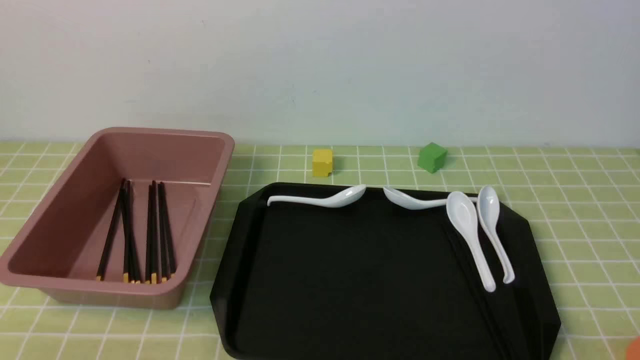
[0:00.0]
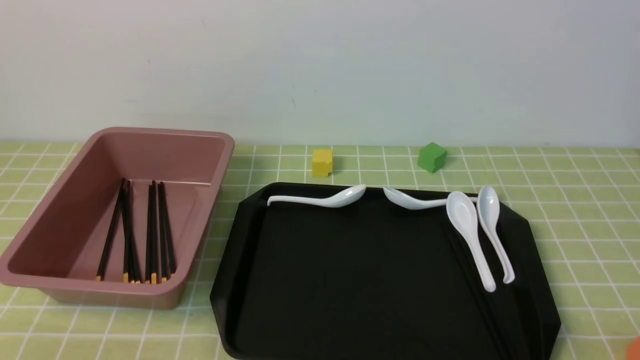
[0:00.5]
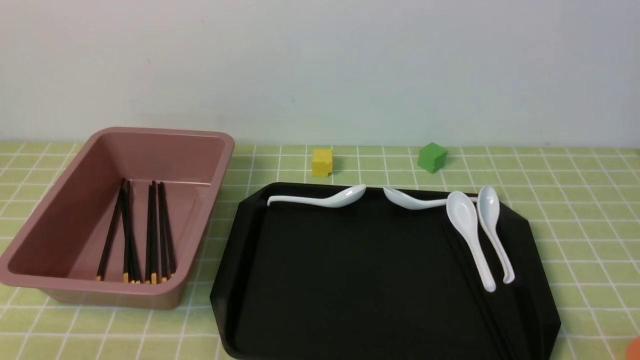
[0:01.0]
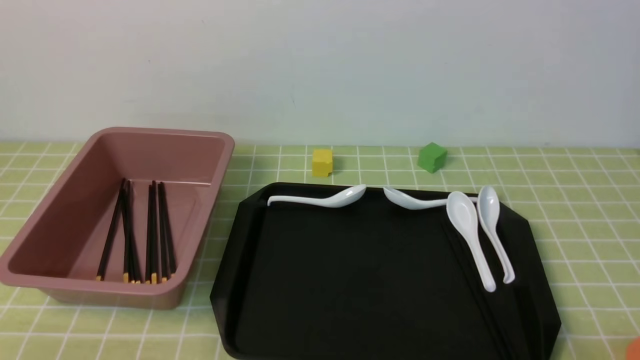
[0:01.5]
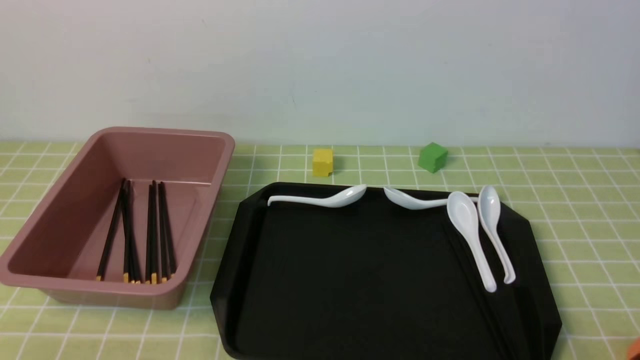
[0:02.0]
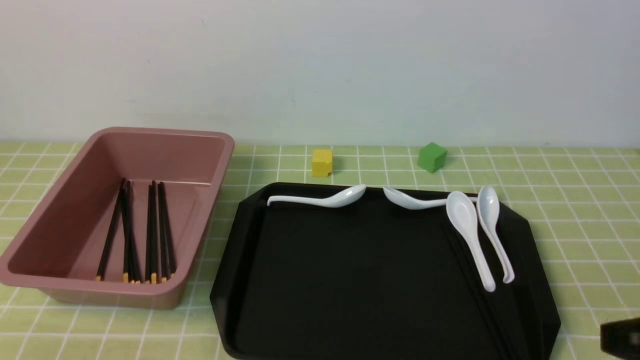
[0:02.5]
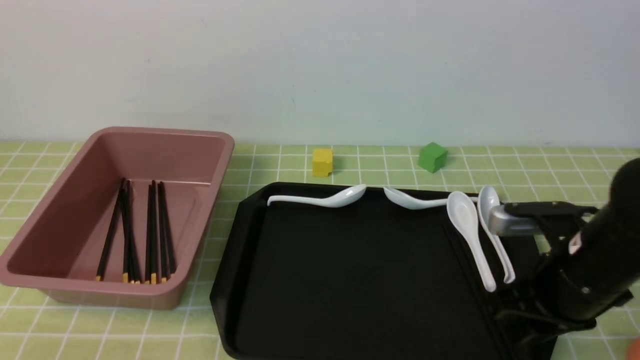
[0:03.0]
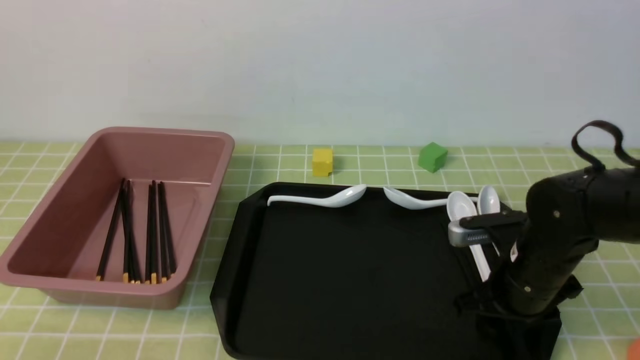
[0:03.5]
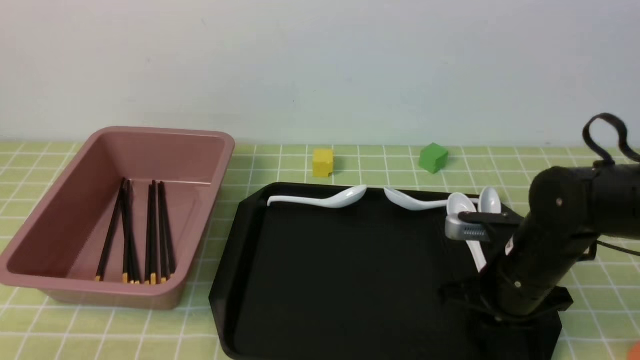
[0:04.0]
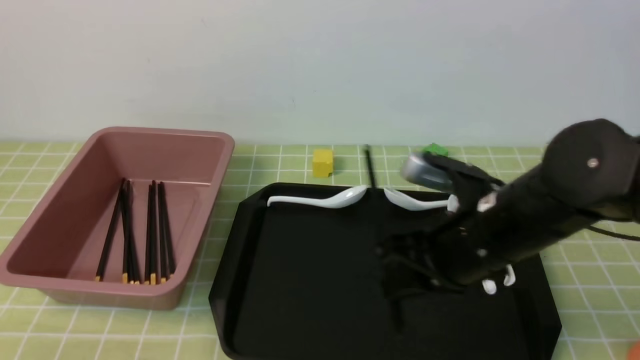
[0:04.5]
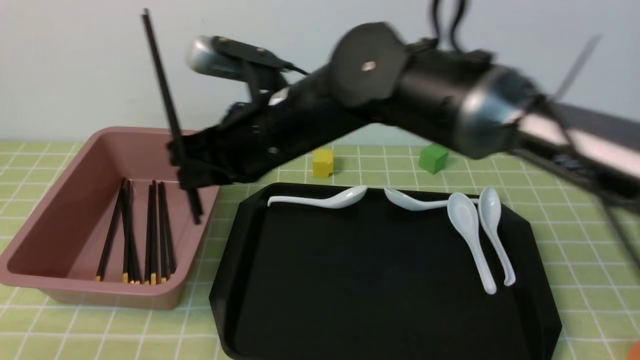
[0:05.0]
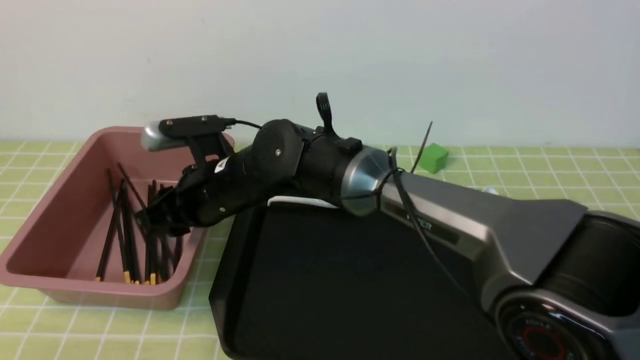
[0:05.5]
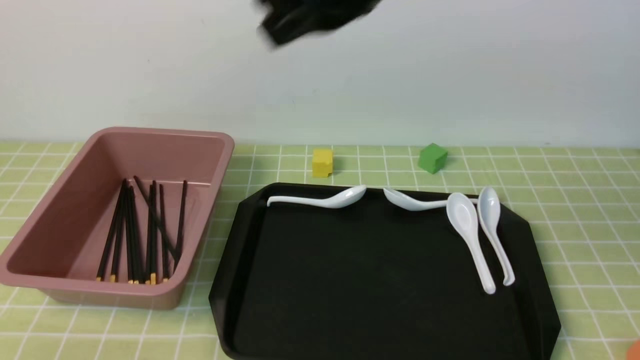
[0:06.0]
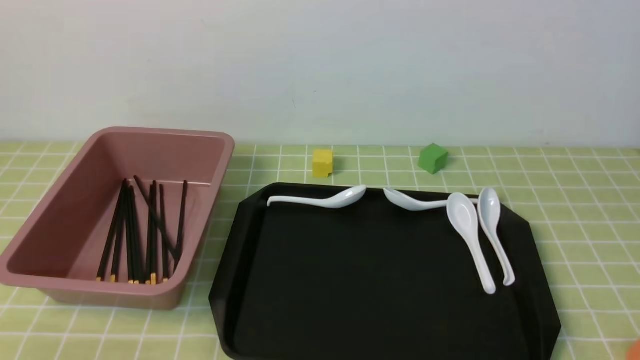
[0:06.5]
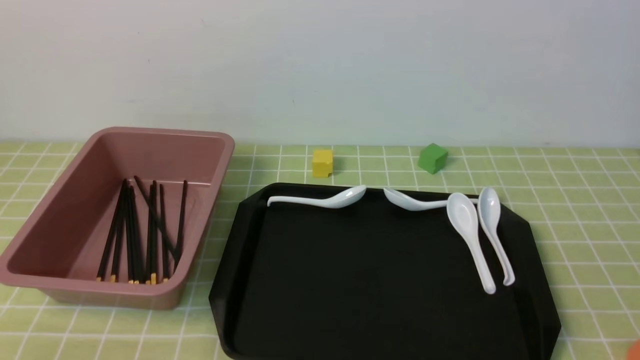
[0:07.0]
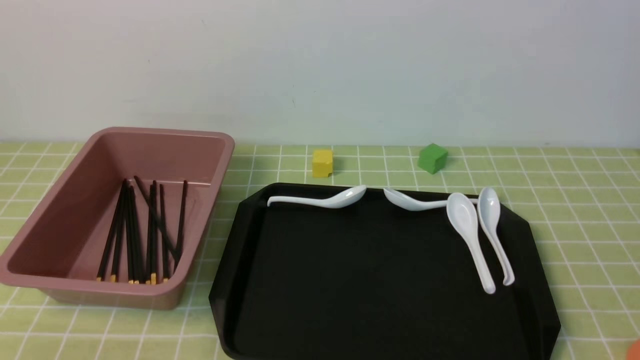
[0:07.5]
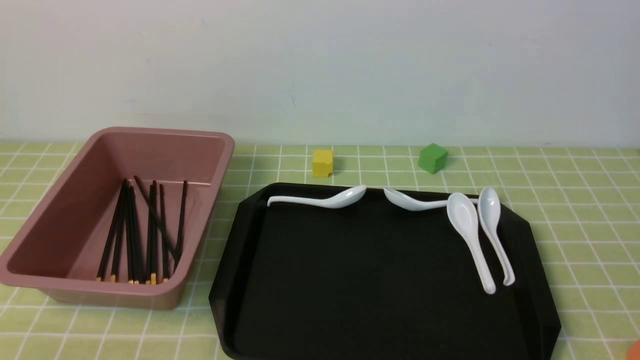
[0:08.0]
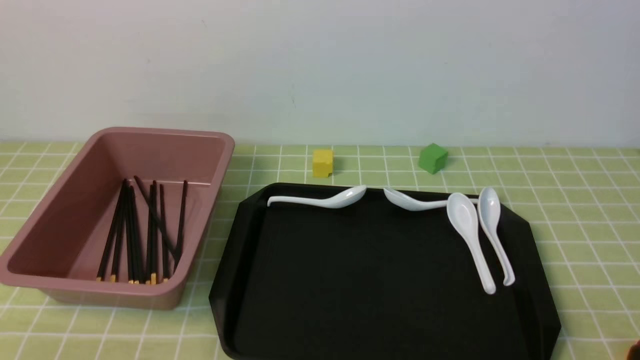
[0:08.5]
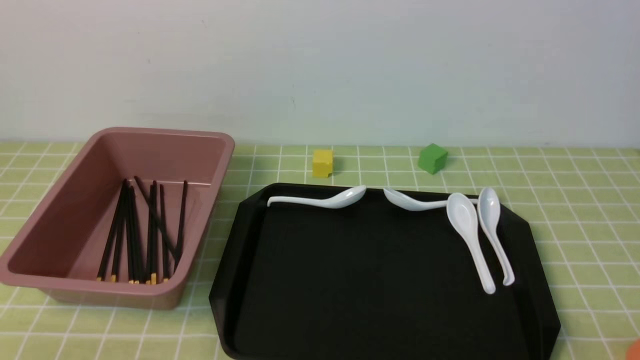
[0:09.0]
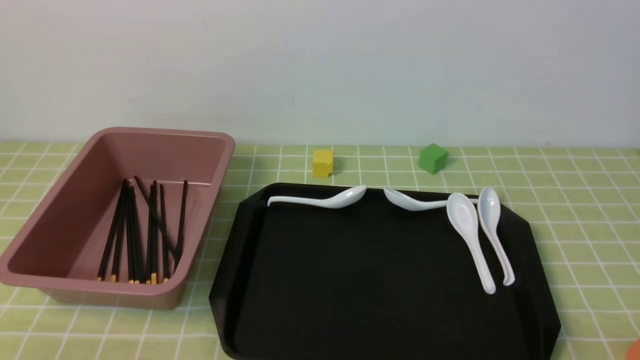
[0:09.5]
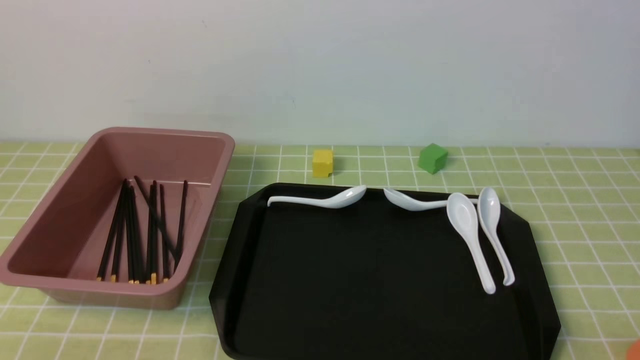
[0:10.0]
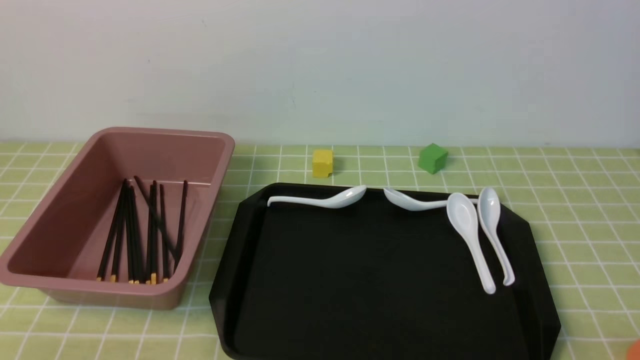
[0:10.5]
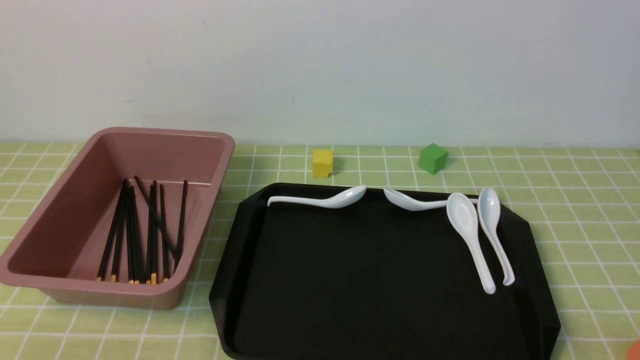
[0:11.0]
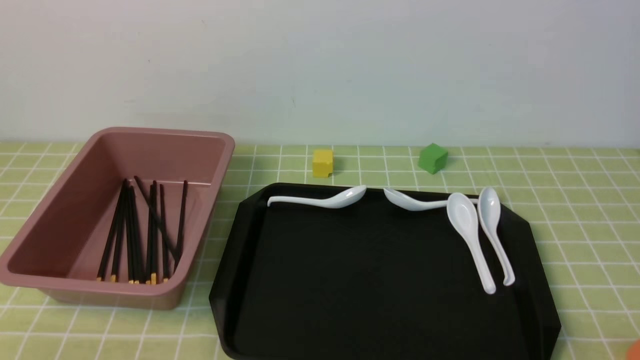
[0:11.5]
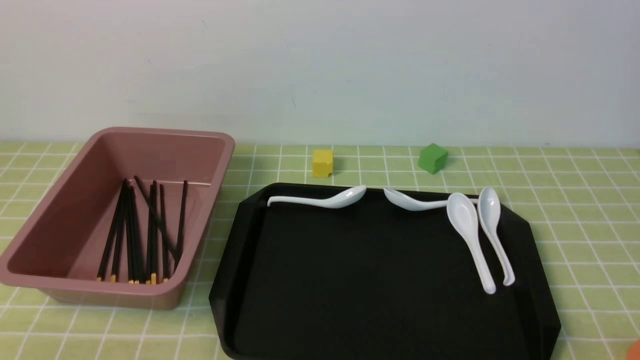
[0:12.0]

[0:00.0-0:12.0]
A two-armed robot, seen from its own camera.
Step, 0:00.0 to 0:04.0: use the right arm to grab a pair of chopsticks.
Step, 0:04.5 to 0:05.5: use the right arm to put the chopsticks into the lunch box.
0:02.0 to 0:04.0: The right gripper goes approximately 25 cm forward, and opens and closes again.
0:04.0 to 0:06.0: The right gripper goes up and down, approximately 30 cm each way, reversing 2 times, and opens, then closes again.
0:06.0 to 0:08.0: The right gripper goes about 40 cm backward, to the right and downward.
0:10.0 to 0:12.0: The two grippers keep their place.
